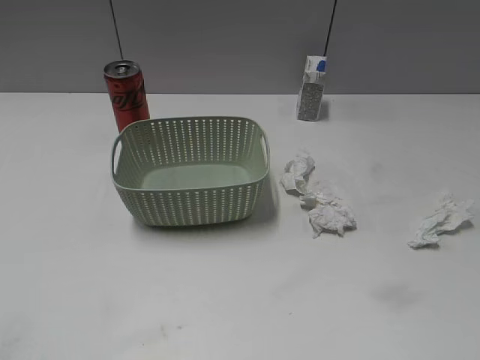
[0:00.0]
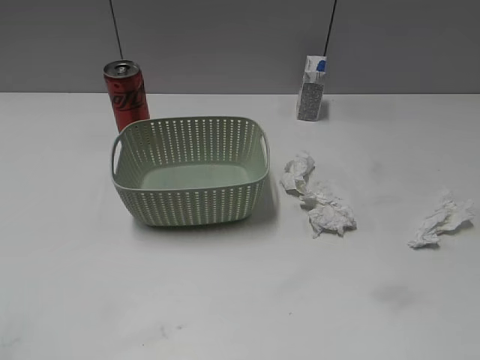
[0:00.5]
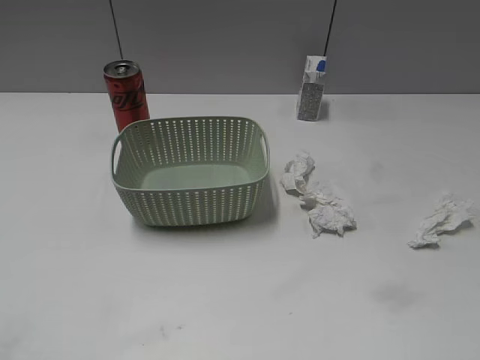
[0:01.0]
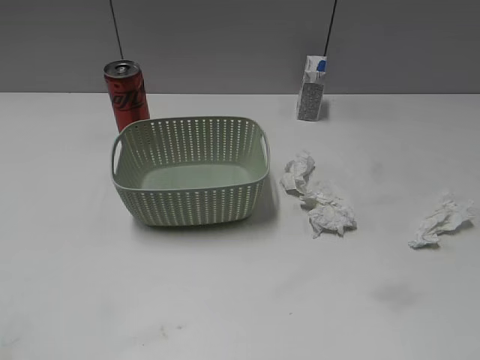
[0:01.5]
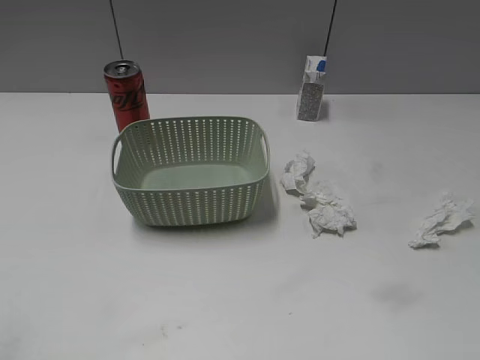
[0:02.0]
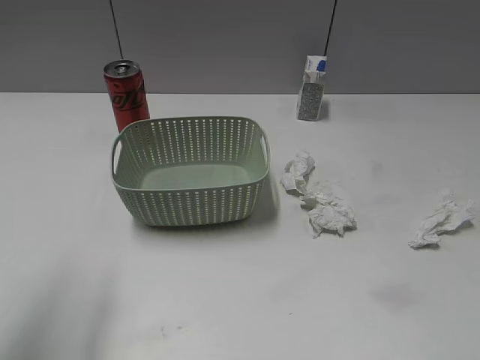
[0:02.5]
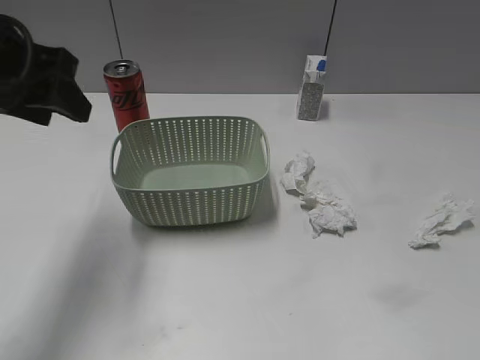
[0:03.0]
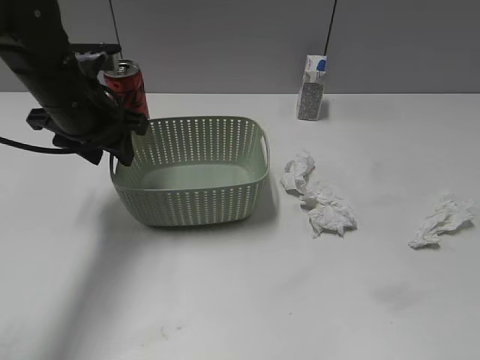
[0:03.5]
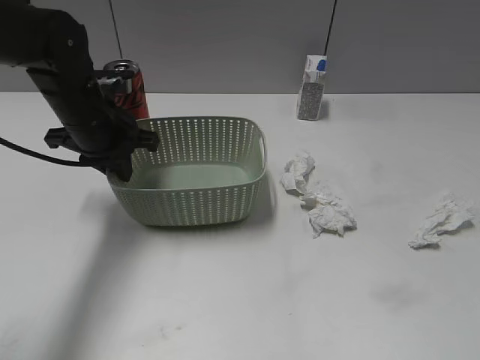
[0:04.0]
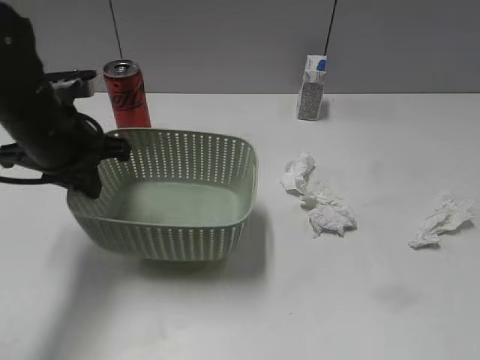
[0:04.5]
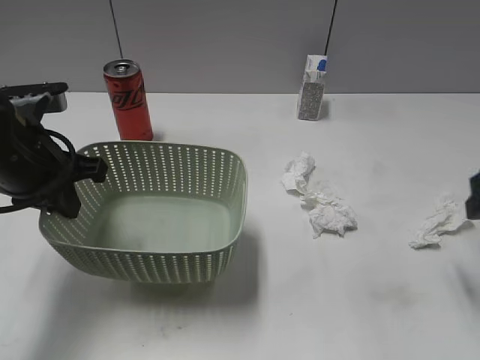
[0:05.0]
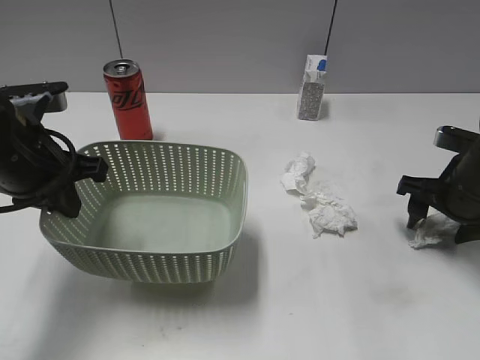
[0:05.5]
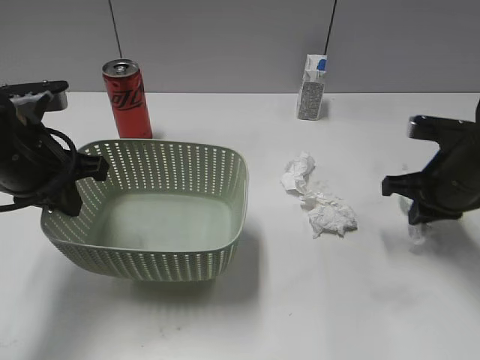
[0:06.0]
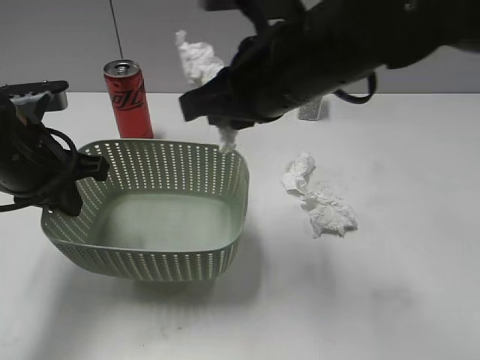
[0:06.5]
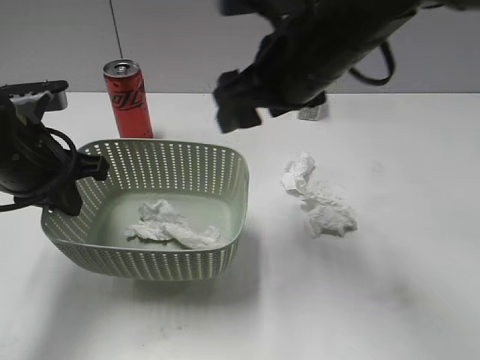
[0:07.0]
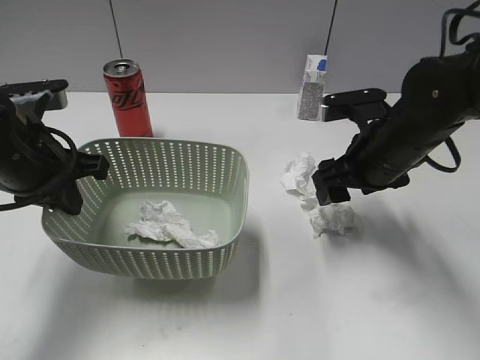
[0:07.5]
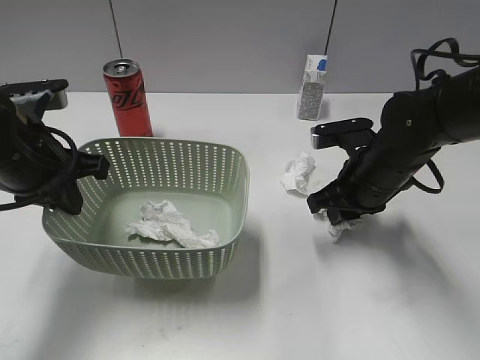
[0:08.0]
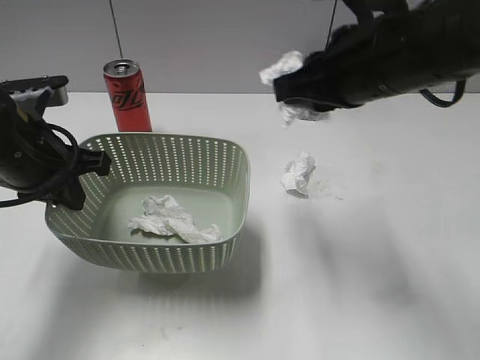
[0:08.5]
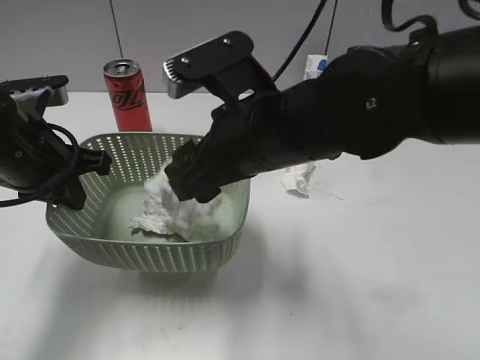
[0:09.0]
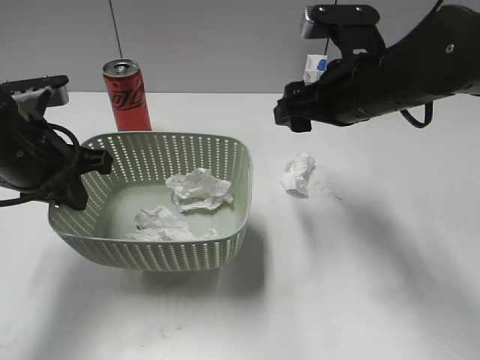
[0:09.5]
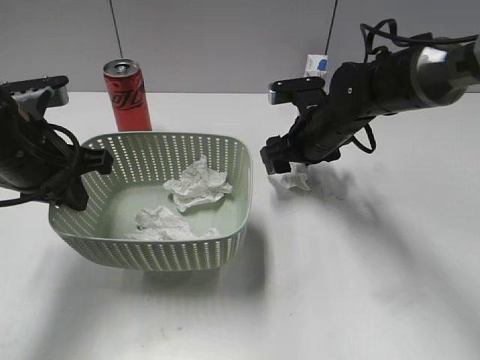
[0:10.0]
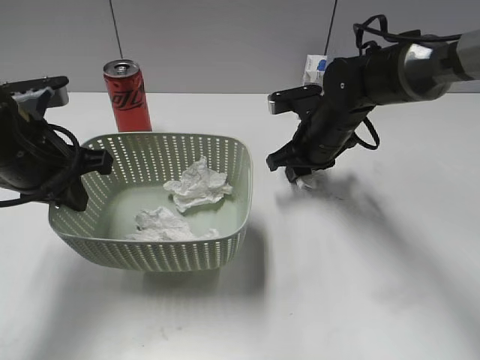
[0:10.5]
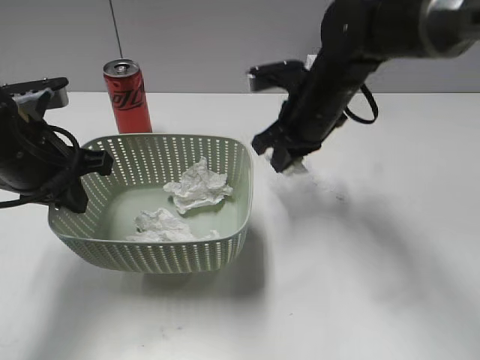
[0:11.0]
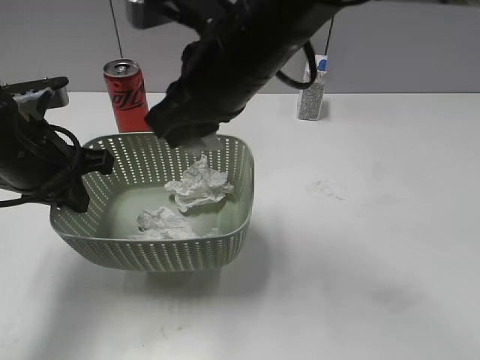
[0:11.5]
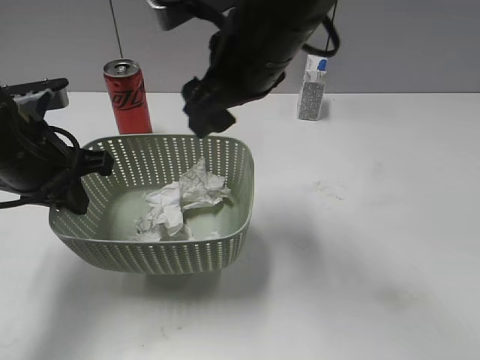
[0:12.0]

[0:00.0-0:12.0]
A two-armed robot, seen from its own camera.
Step, 0:02.5 to 0:03.0: Grasp the basket with left gripper.
Step, 0:03.5 to 0:04.0: Lift the basket with left gripper.
Step, 0:04.5 to 0:06.0: Grasp the waste paper with right gripper.
Step, 0:06.5 to 0:07.0: Place the waste paper in the basket with right gripper.
Step, 0:07.5 to 0:08.0: Grasp the waste paper with right gripper.
Step, 0:08.5 to 0:09.0: Place the waste paper in the basket with right gripper.
Step, 0:09.5 to 0:11.0: Grasp the waste paper with right gripper.
0:02.0 to 0:04.0: The left gripper heads forward, downward and to the right, covering some 40 cm, and closes its fingers.
0:04.0 to 0:06.0: The left gripper travels backward by about 10 cm; the right gripper goes some 35 cm forward and downward, and closes.
0:06.0 to 0:08.0: The right gripper is displaced to the left by some 10 cm, and opens.
0:08.0 to 0:10.0: The right gripper heads forward, covering approximately 5 cm, goes upward and returns, approximately 15 cm each way, and opens its fingers.
0:10.0 to 0:12.0: The right gripper goes approximately 20 cm upward, to the left and backward, and closes, then opens again.

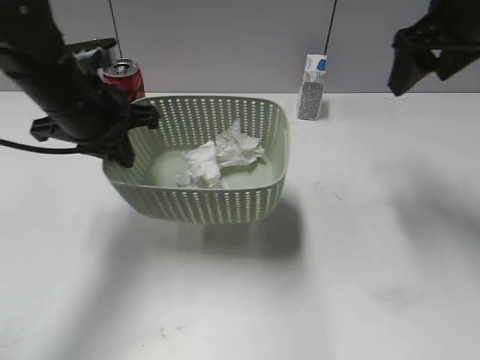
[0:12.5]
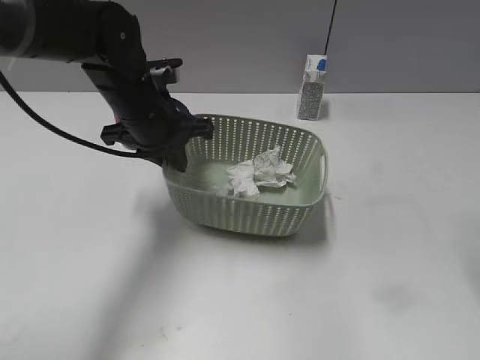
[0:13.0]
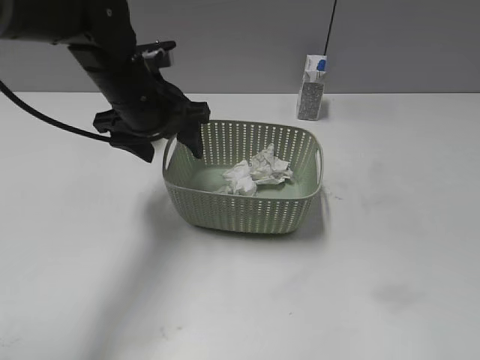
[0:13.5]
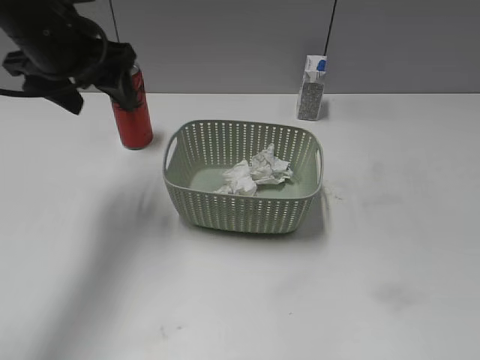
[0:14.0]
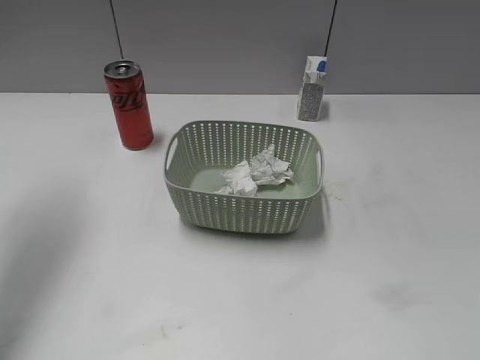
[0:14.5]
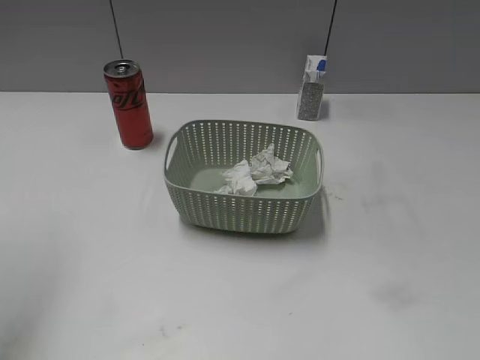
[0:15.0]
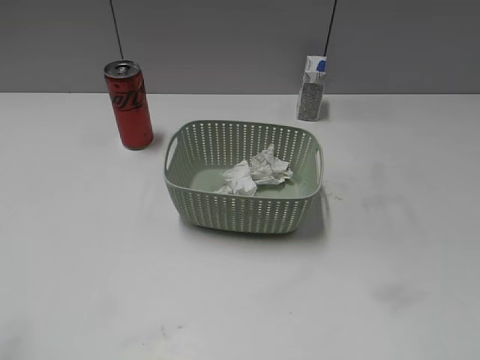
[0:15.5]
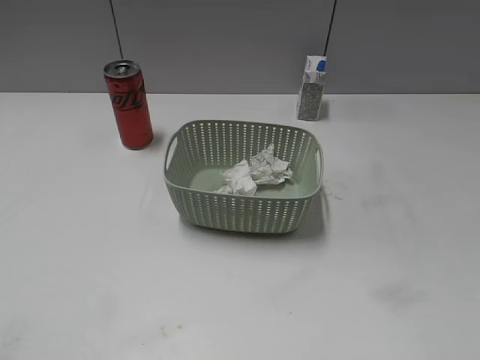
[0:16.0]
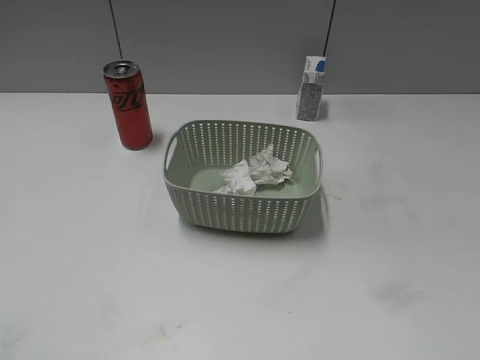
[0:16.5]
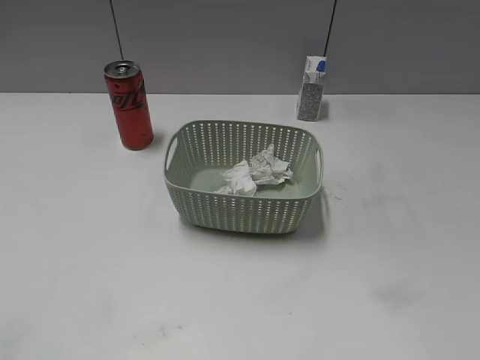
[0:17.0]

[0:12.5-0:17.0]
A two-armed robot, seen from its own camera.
0:12.5 to 0:14.5: The left gripper moves upward and to the left, some 20 cm, and opens its fingers. The right gripper travels backward by about 35 cm.
0:14.5 to 0:17.0: The left gripper heads backward, covering about 30 cm.

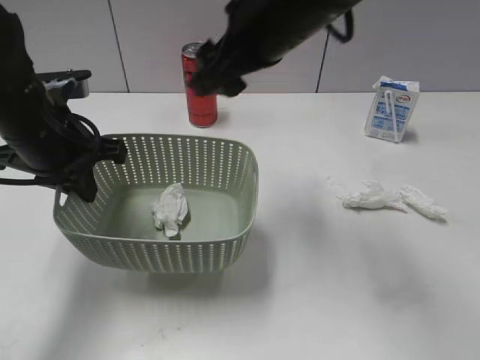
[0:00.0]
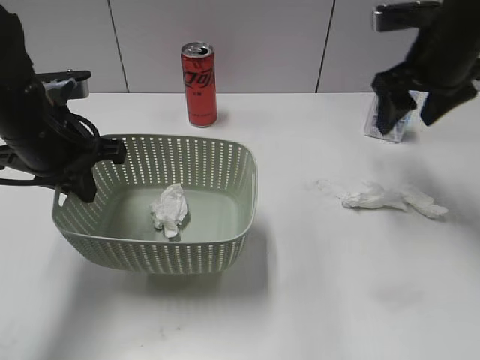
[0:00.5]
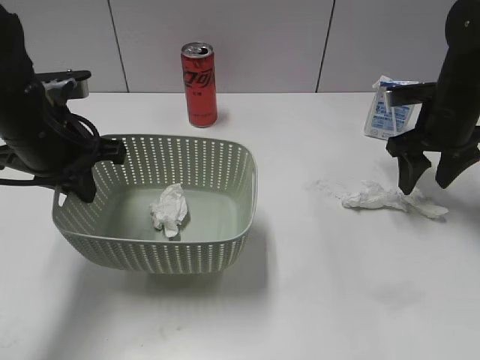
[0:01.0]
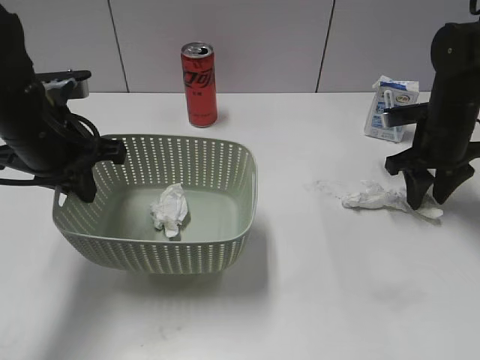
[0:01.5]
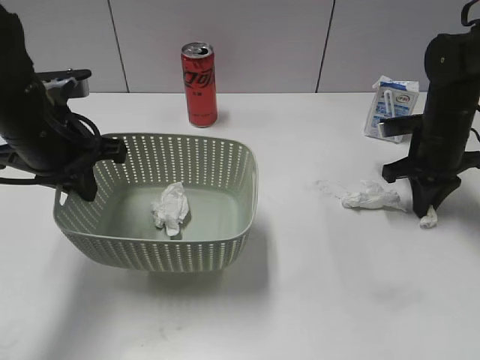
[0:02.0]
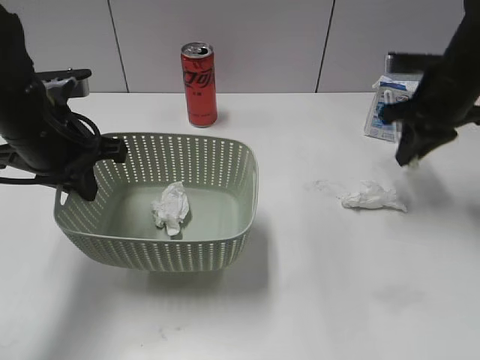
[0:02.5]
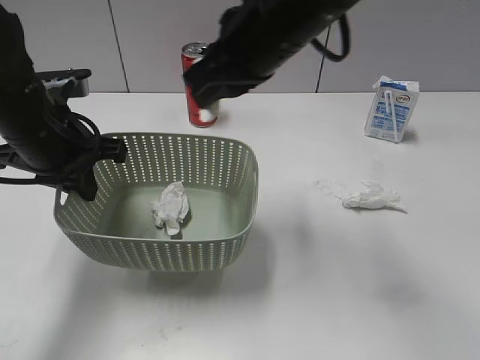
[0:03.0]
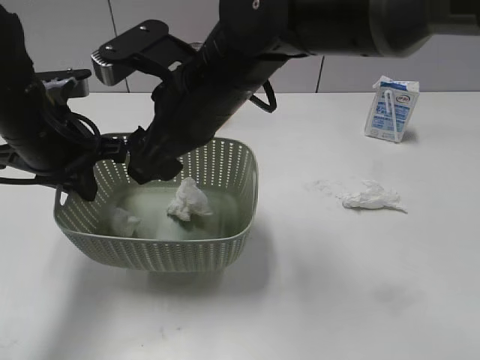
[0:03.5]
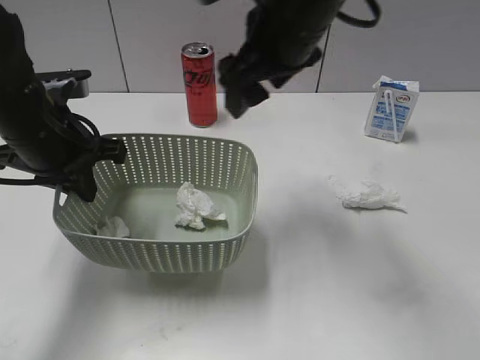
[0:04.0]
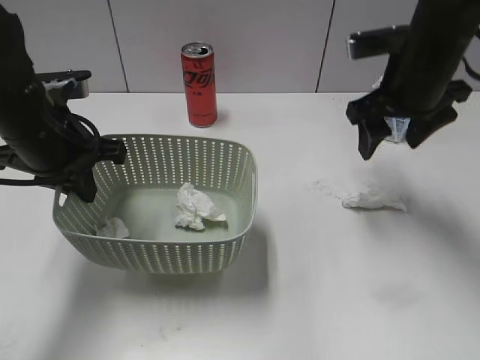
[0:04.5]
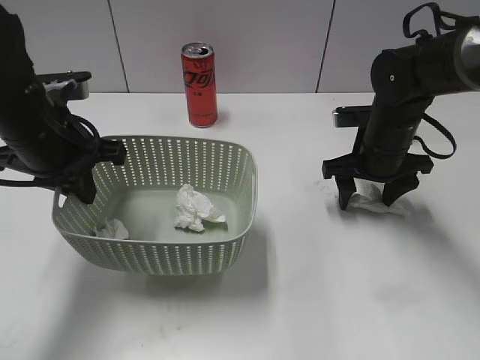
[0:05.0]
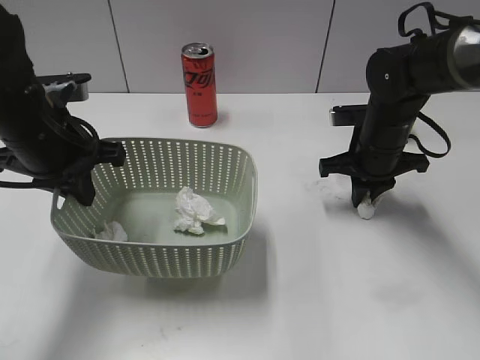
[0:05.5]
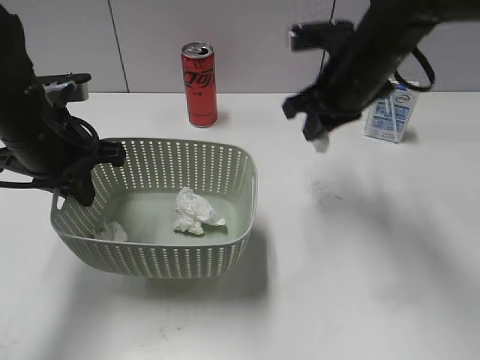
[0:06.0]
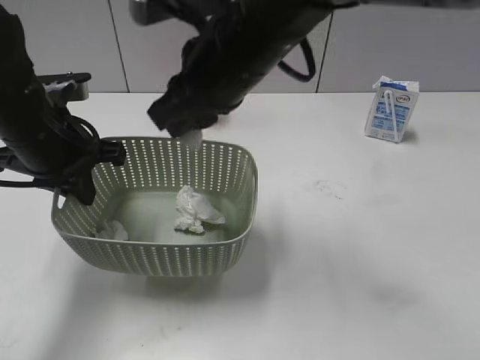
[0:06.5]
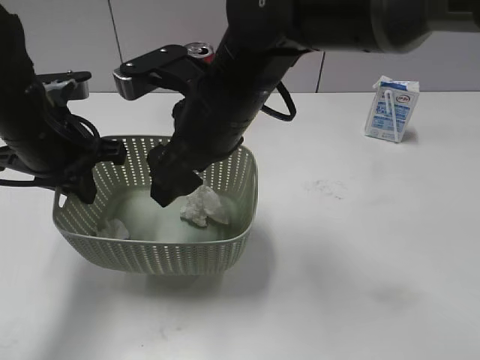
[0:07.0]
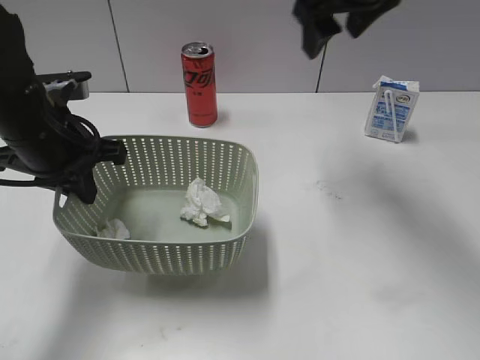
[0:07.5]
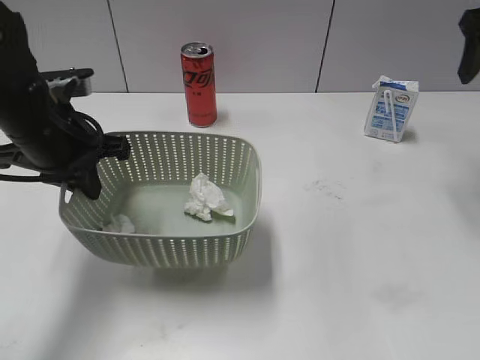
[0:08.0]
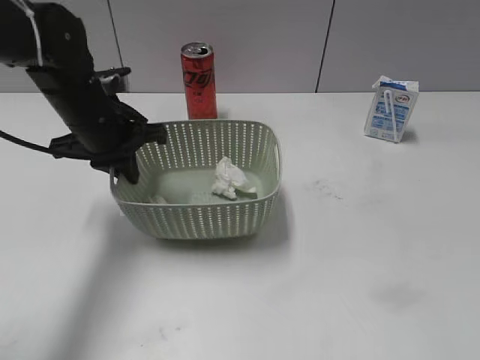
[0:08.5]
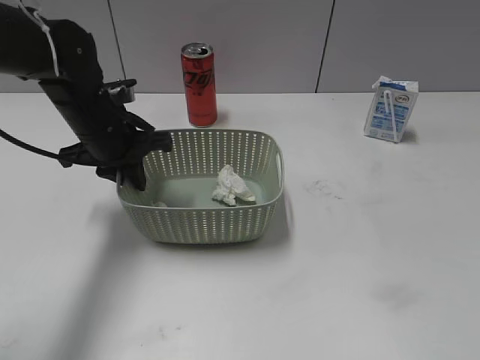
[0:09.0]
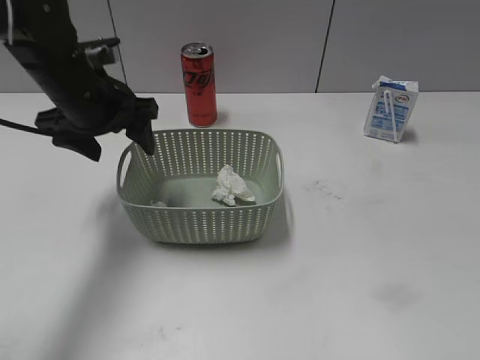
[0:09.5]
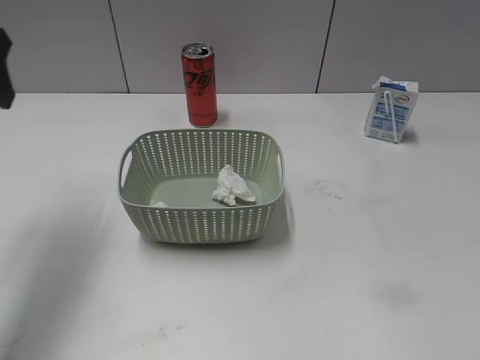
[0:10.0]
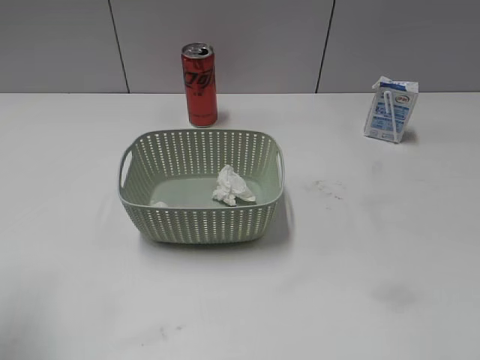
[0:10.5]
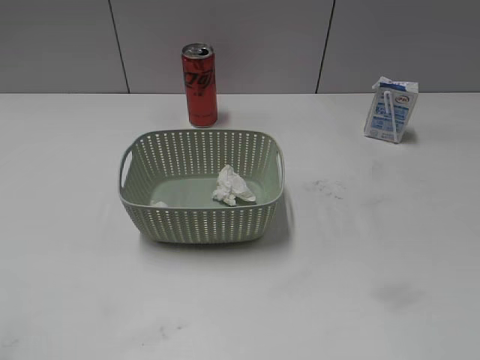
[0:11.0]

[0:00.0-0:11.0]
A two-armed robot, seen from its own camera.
Step, 0:00.0 to 0:02.0: Grasp the waste paper with right gripper.
Step, 0:02.5 to 0:03.5: Place the waste paper in the basket with right gripper.
Step, 0:04.0 to 0:05.5: Grasp the waste paper with right gripper.
Step, 0:06.0 to 0:07.0: Place the waste paper in the basket with right gripper.
Step, 0:07.5 to 0:09.5: Place the basket on the table with left gripper.
0:00.0 to 0:02.0: The right gripper is displaced to the right and downward by some 30 cm, and closes up.
0:02.0 to 0:03.5: The right gripper travels to the left and upward by approximately 30 cm, and opens up.
0:03.5 to 0:05.5: The right gripper heads to the right, downward and forward, covering roughly 25 cm, and closes up.
0:05.5 to 0:07.5: The right gripper goes up and down, roughly 20 cm each way, reversing 2 times, and opens.
0:07.5 to 0:09.0: The left gripper moves forward, about 5 cm, while the right gripper shifts some 40 cm backward and to the right.
0:09.0 to 0:11.0: The left gripper moves backward and to the left, about 35 cm, and opens its fingers.
